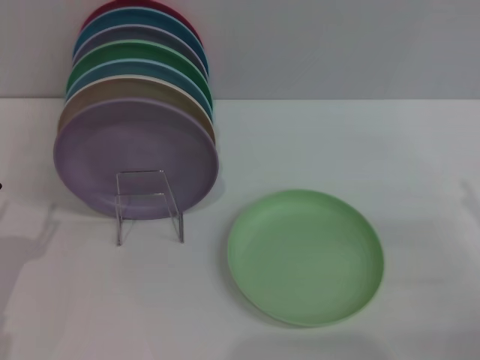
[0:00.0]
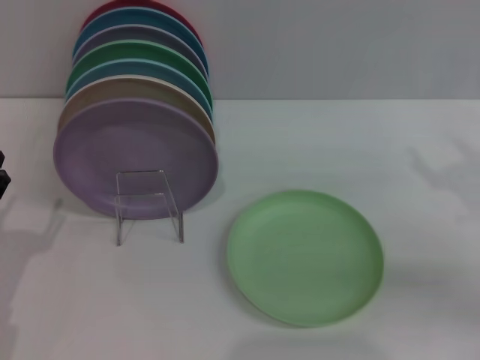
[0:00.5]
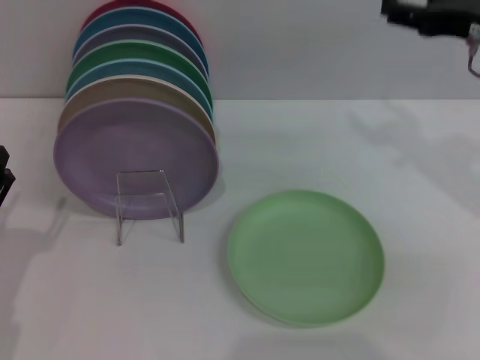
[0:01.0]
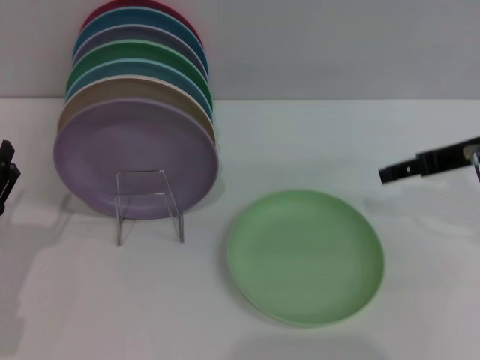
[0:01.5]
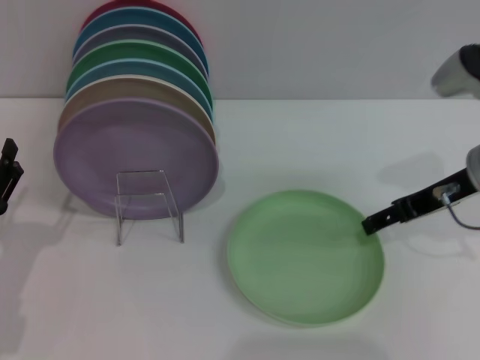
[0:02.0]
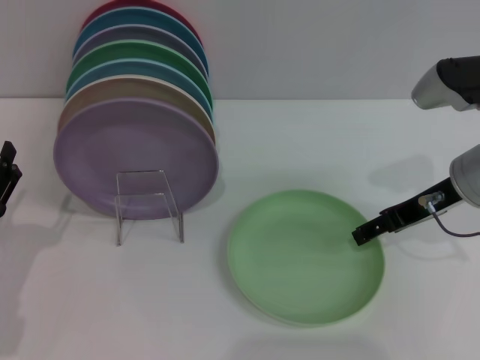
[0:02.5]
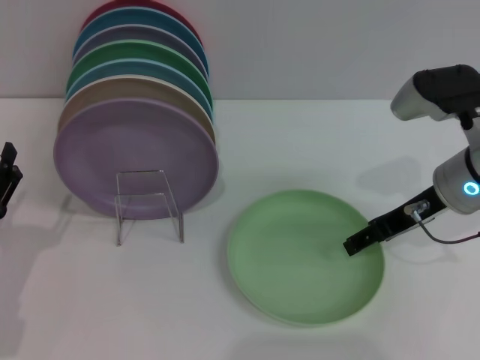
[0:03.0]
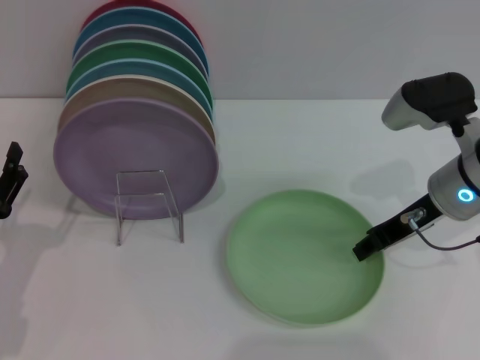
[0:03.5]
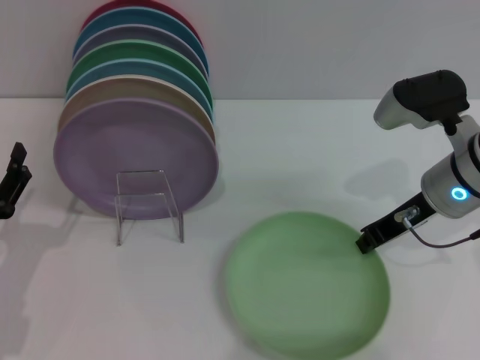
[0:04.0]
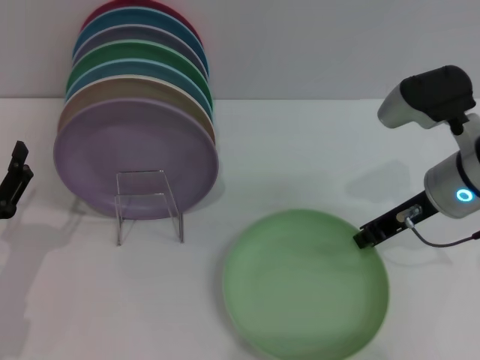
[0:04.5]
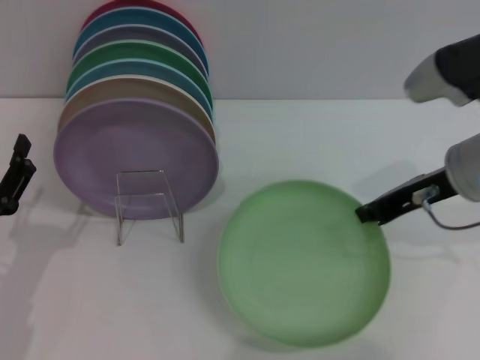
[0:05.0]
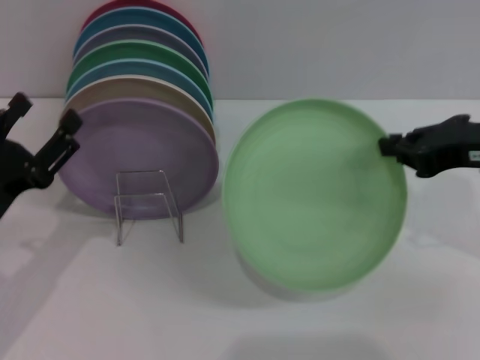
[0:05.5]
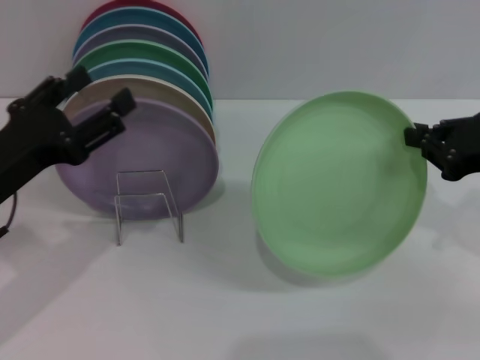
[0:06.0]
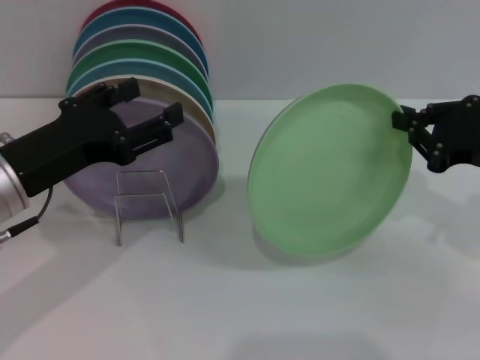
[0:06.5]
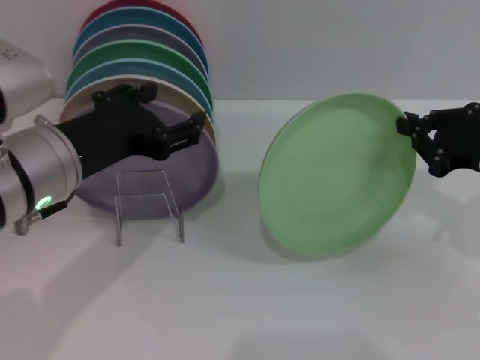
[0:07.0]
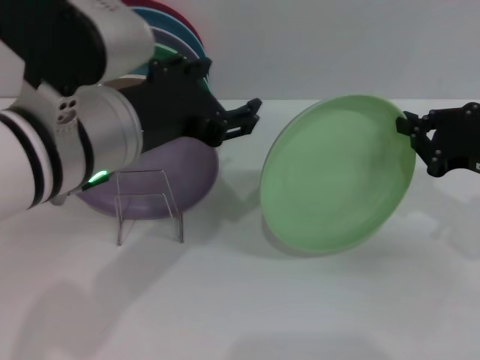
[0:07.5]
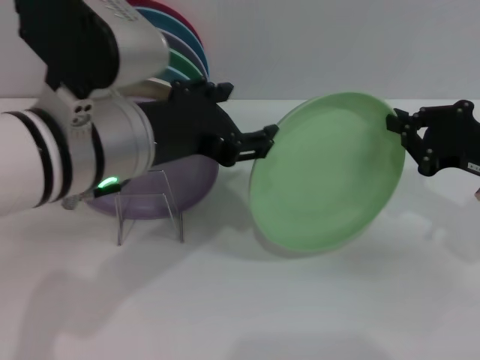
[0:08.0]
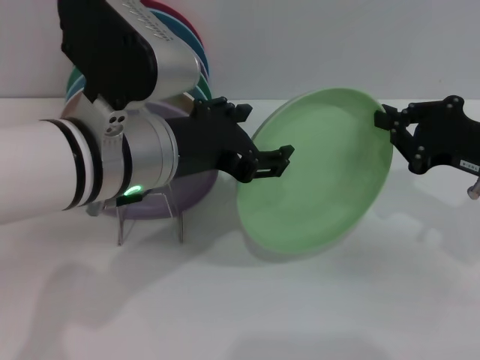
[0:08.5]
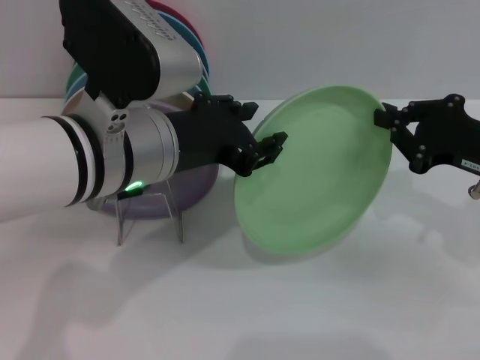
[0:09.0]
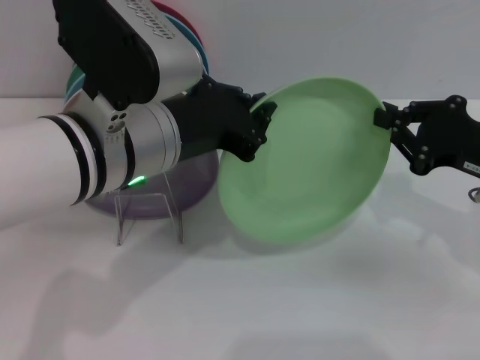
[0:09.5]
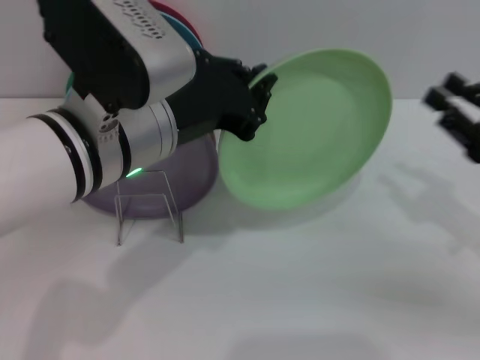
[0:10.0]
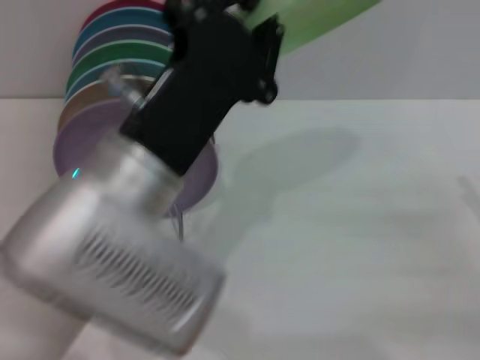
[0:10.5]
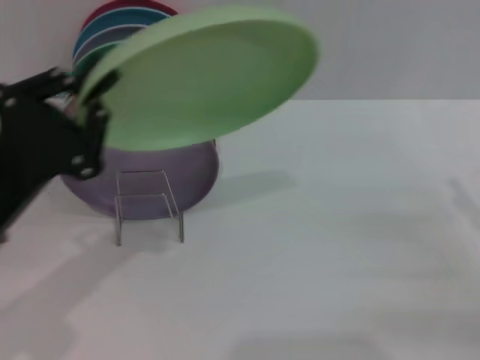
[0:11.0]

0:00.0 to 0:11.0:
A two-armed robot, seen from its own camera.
Task of the whole recording: Grip the plate with one hand, pass it to the other, then set it on the shelf.
Step, 0:00.0 to 0:04.5: Pick up the plate with the right gripper.
Step, 0:05.5 to 0:09.5: Pass the plate from the right gripper to the left gripper.
0:00.0 to 0:02.0: The right gripper shifts about 20 cm forward, to the left and upward.
0:02.0 to 0:03.5: There are only small adjustments of the grippers.
0:03.5 to 0:05.5: The left gripper ends up some 5 cm from where it was. Meanwhile the right gripper heads upward and backward, covering about 10 cm, and closes.
0:05.5 to 0:07.5: The left gripper goes roughly 20 cm to the right and upward; the right gripper moves downward, some 10 cm.
0:09.0 to 0:11.0: The left gripper travels to the left and downward by approximately 15 cm, and closes; the right gripper is displaced backward and to the right by about 10 cm, and opens up.

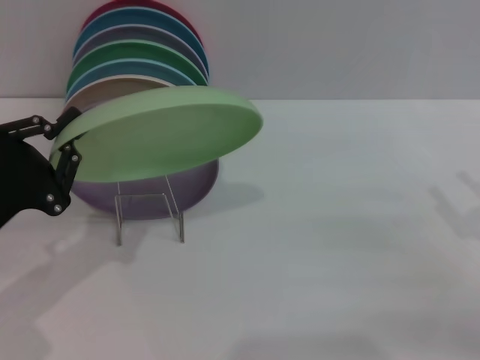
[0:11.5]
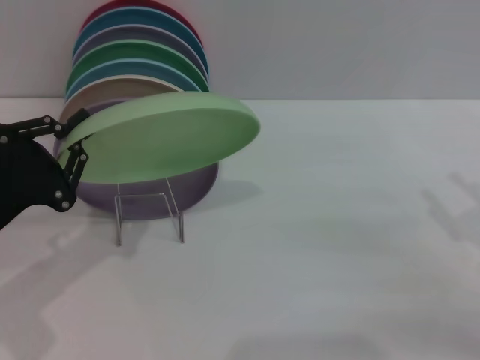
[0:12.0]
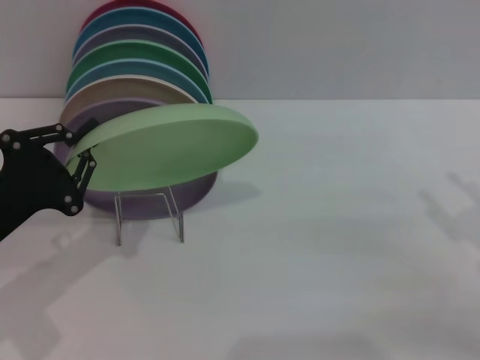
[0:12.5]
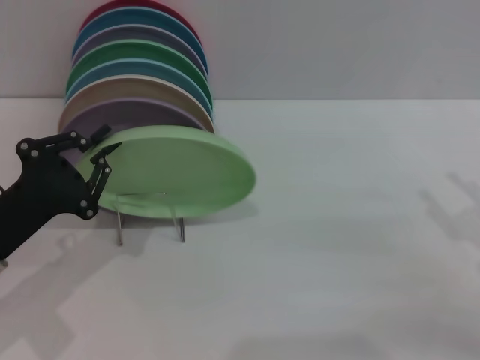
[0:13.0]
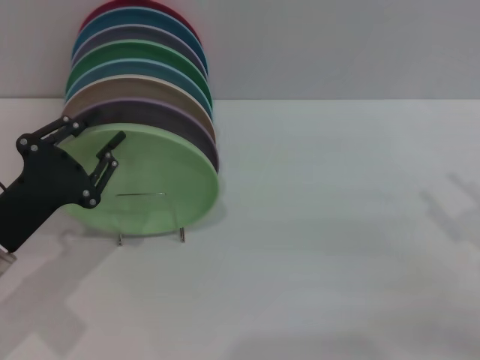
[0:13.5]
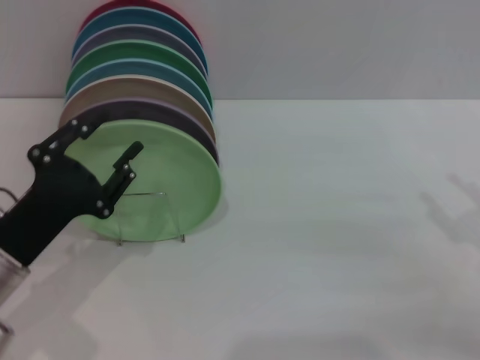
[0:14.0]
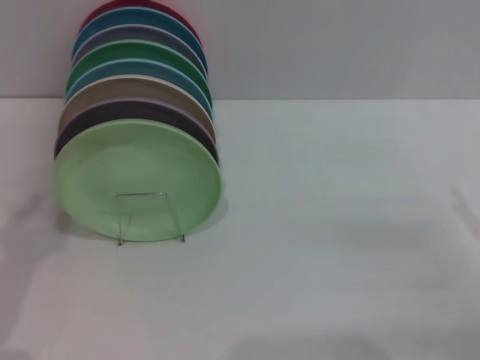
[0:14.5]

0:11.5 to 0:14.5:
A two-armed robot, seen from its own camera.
Task of the whole recording: Grip the plate with one hand, pass it to the other, then set it on the shelf.
Step, 0:11.5 to 0:14.0: Place the plate on the shelf with the left gripper.
0:11.5 to 0:13.0: The grippers make only small movements.
0:13.0 to 0:14.5: The left gripper goes roughly 5 cm backward, and opens up.
